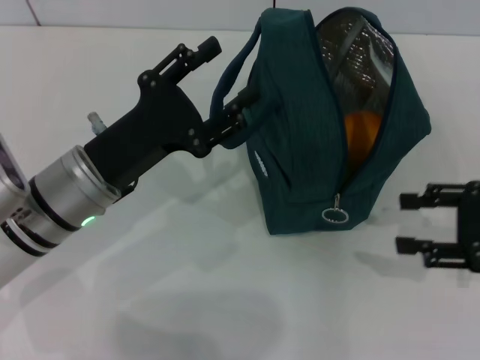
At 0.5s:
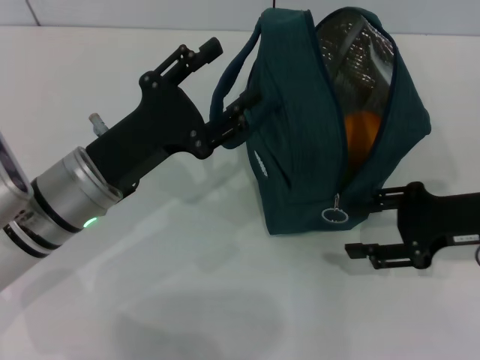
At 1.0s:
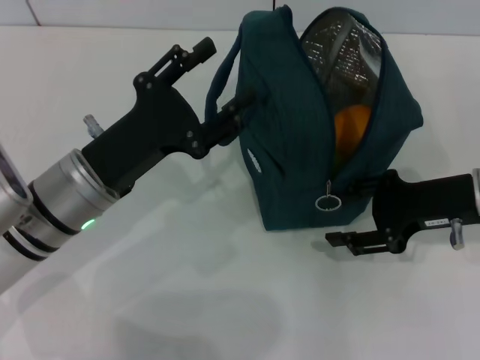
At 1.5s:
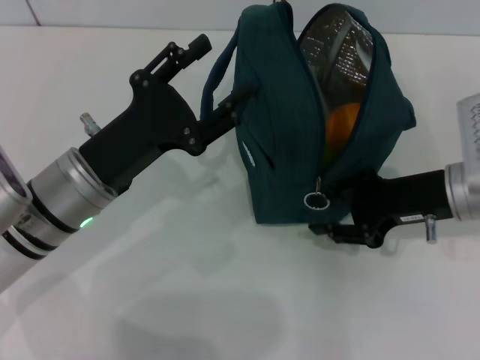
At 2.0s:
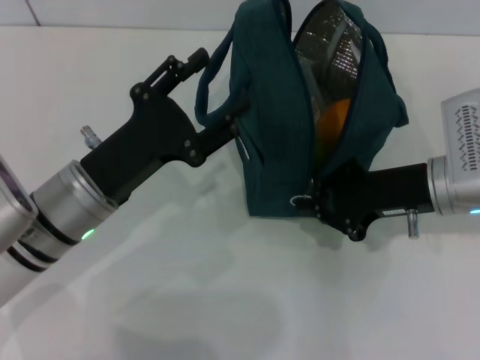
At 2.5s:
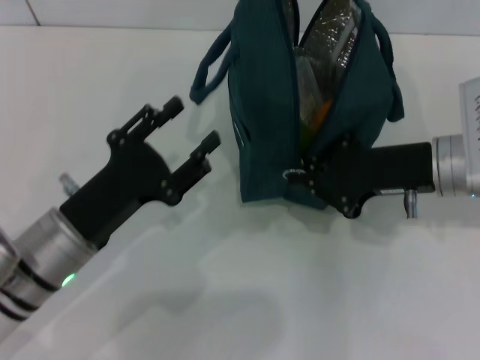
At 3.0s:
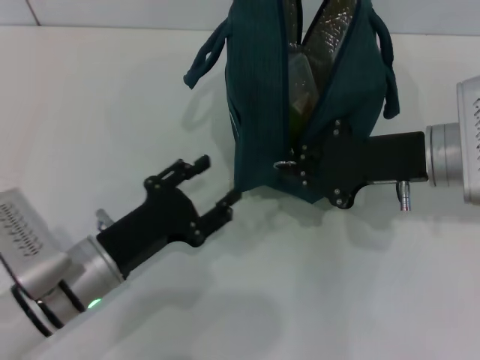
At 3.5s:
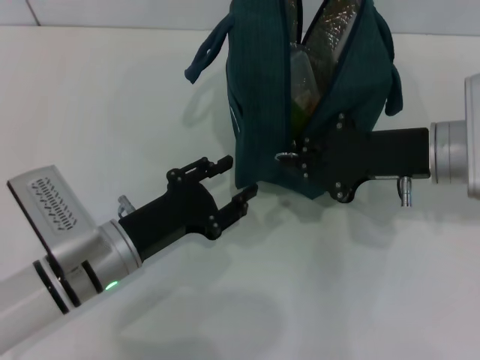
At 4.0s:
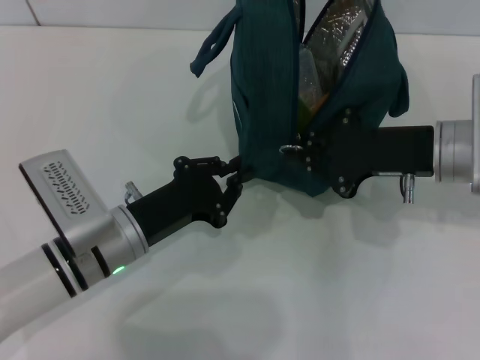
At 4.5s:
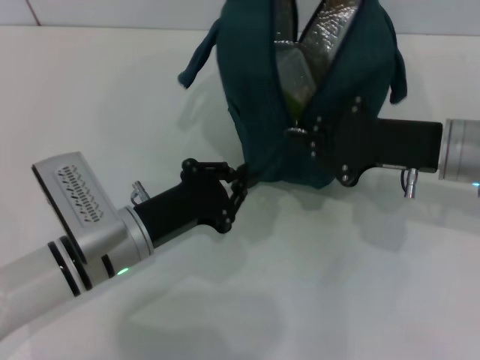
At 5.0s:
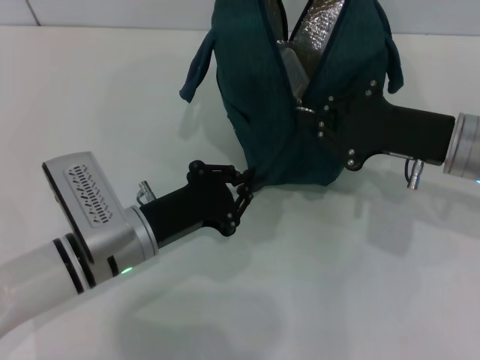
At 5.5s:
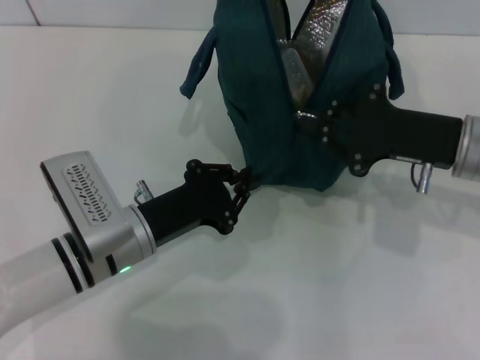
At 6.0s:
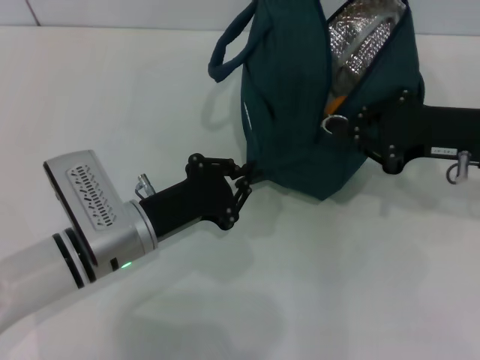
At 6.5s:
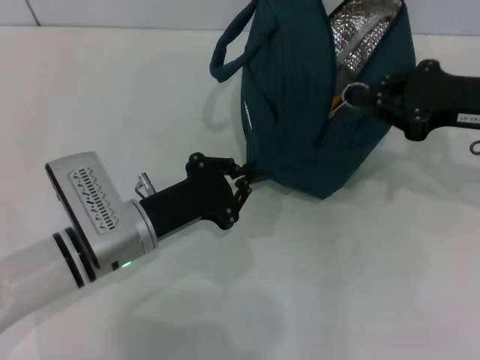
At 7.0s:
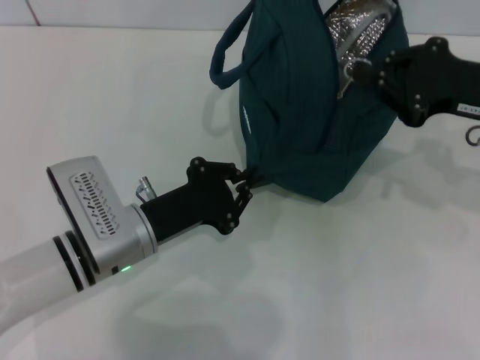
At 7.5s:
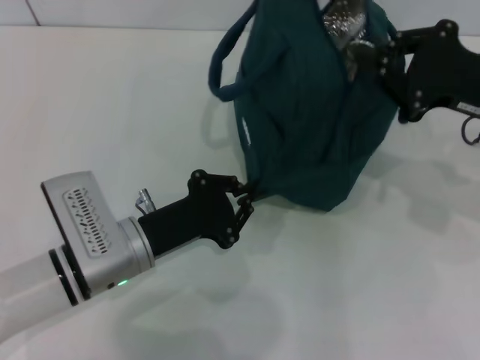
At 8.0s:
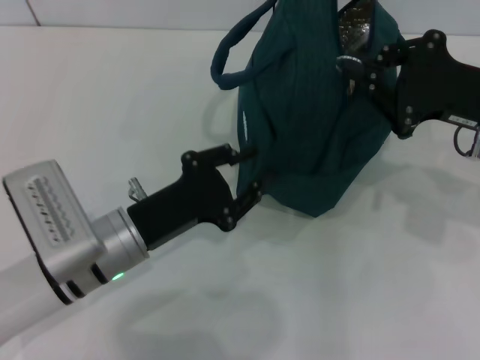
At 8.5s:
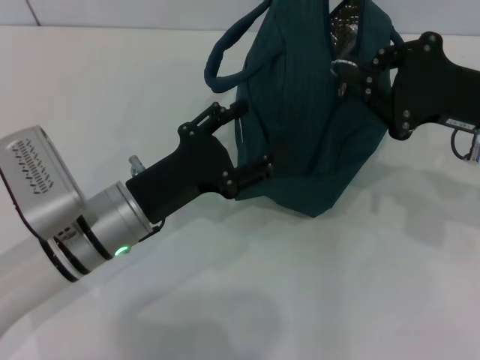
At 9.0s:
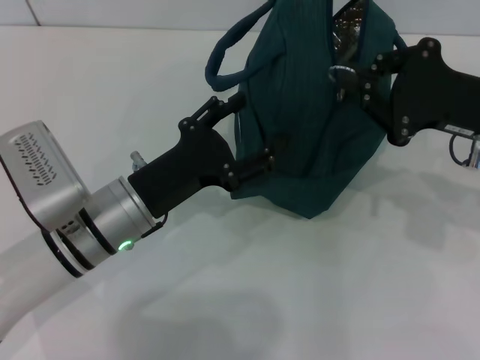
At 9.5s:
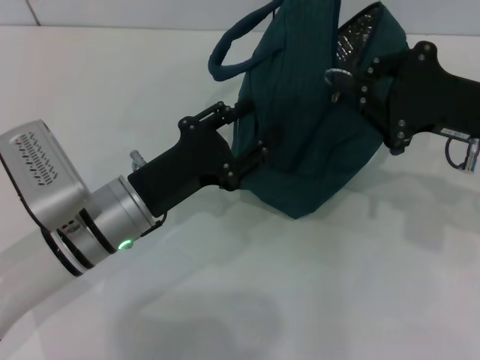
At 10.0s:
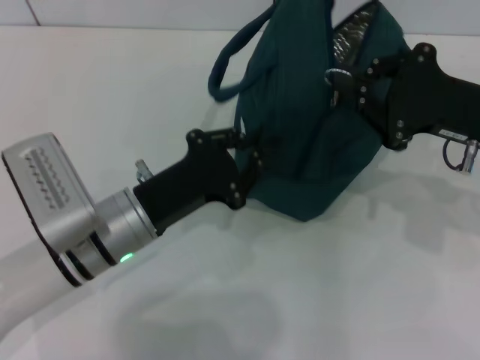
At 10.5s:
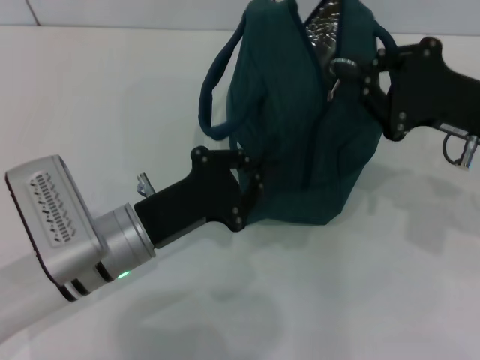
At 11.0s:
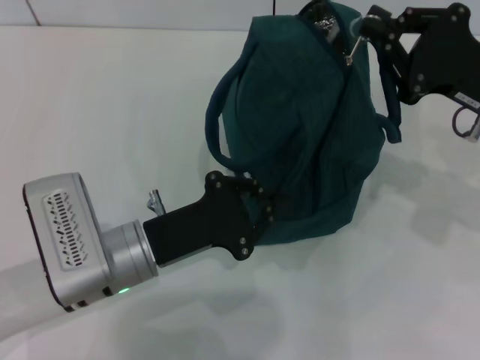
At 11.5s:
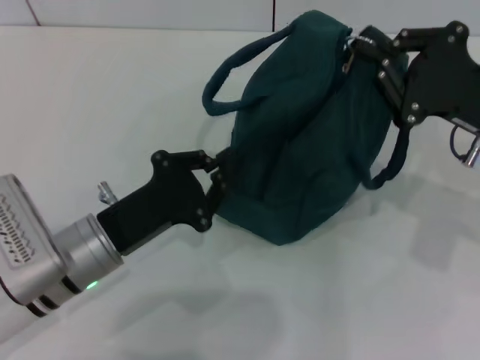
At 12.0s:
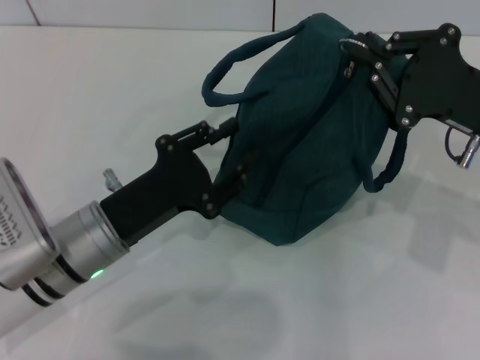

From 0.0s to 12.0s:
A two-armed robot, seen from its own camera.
From 0.0s to 2.0s: The right gripper moves to the left and forward, about 15 cm, and closes up.
From 2.0s to 4.0s: The left gripper travels downward by roughly 5 cm, and closes up.
From 8.0s to 10.0s: The left gripper opens and closes again.

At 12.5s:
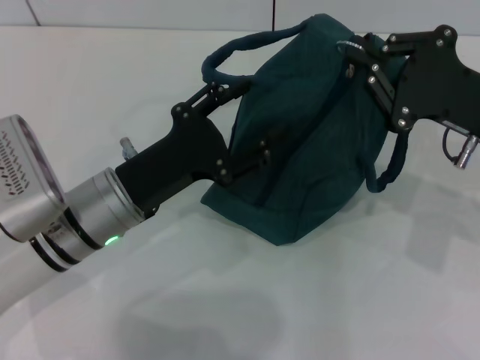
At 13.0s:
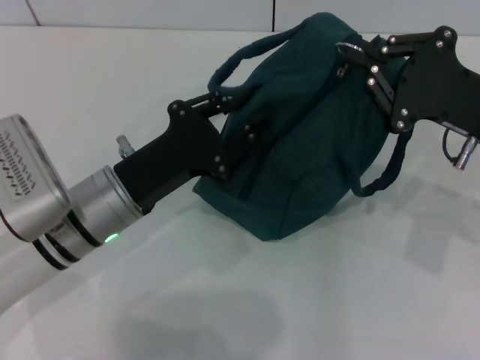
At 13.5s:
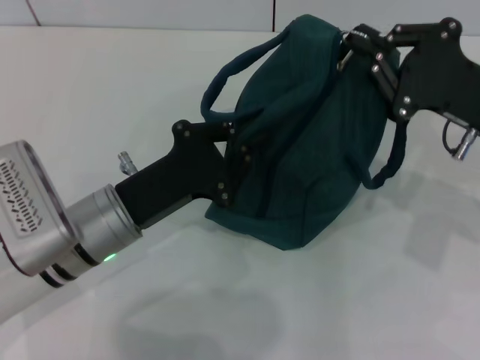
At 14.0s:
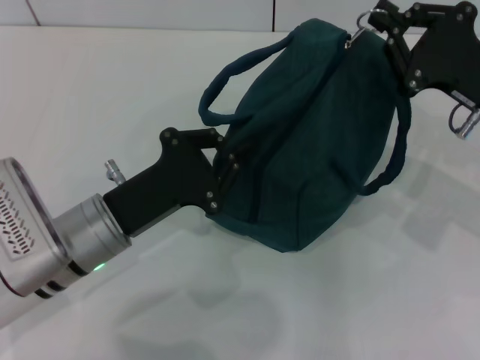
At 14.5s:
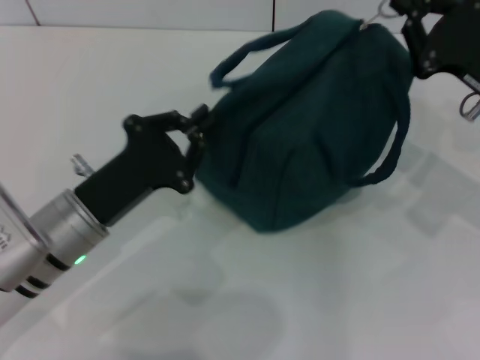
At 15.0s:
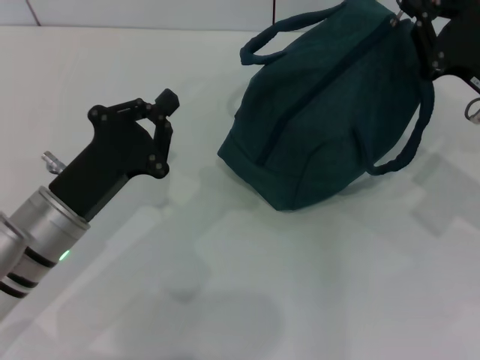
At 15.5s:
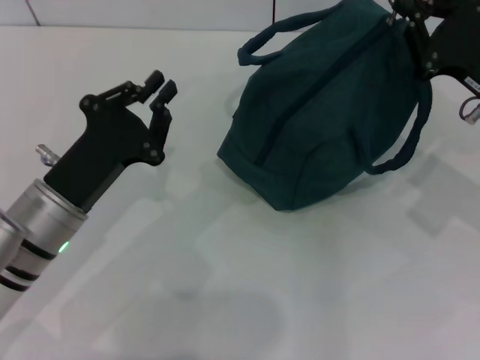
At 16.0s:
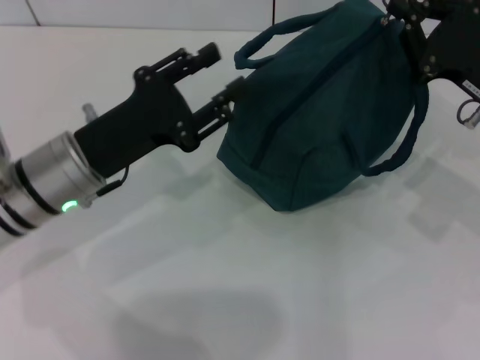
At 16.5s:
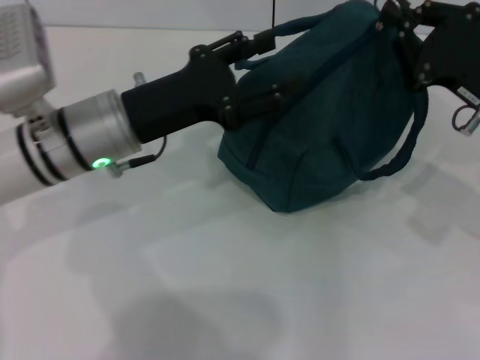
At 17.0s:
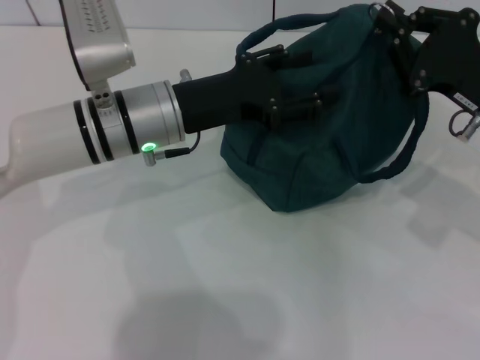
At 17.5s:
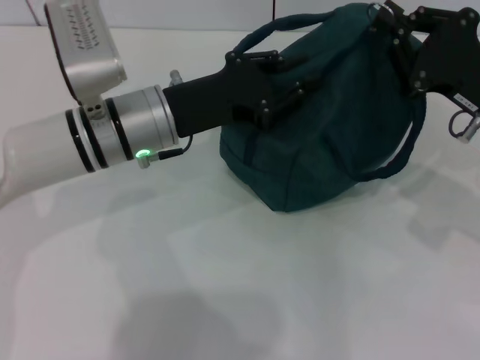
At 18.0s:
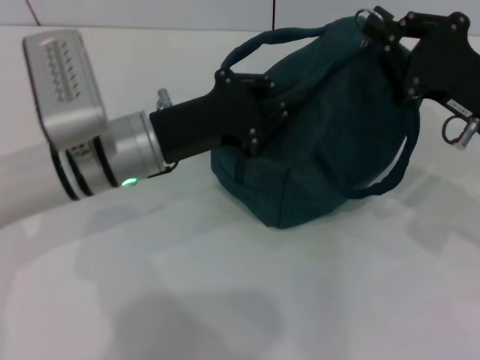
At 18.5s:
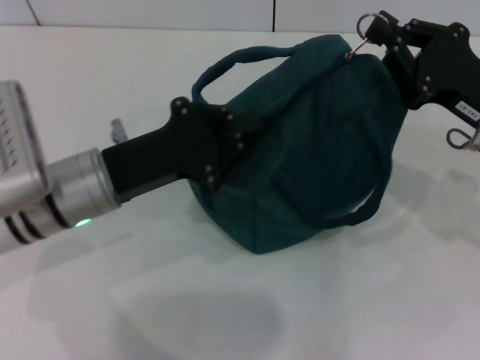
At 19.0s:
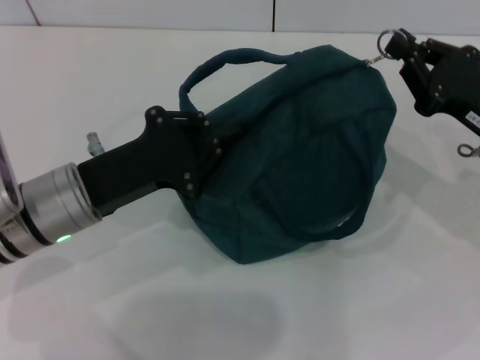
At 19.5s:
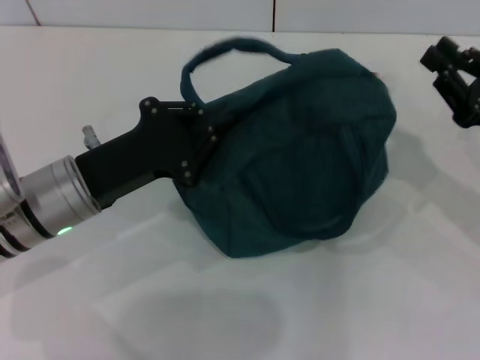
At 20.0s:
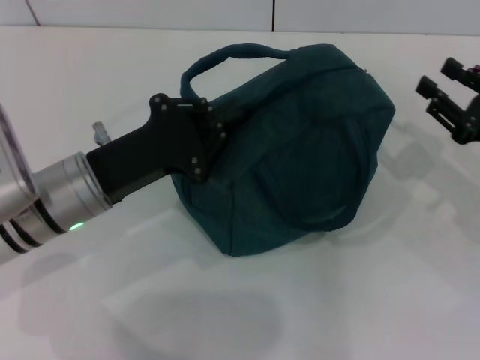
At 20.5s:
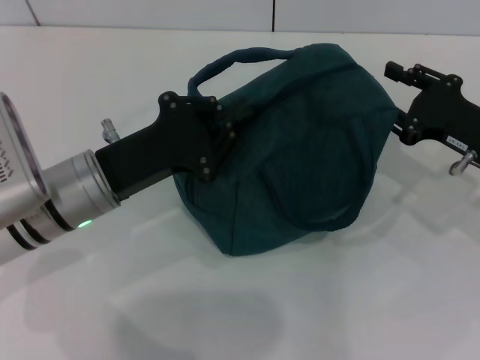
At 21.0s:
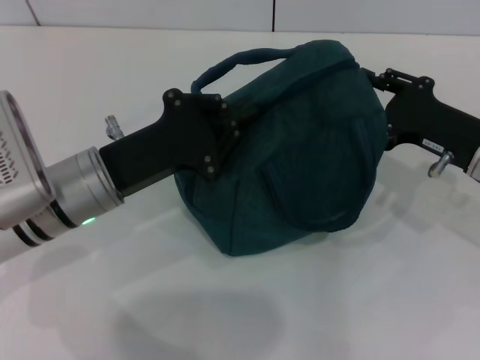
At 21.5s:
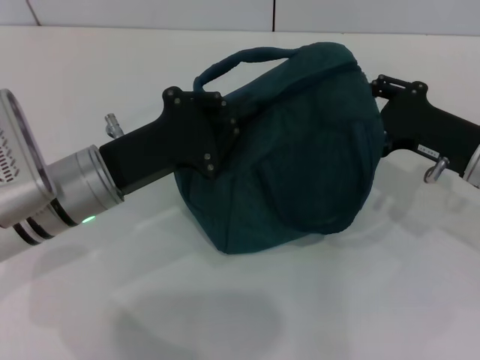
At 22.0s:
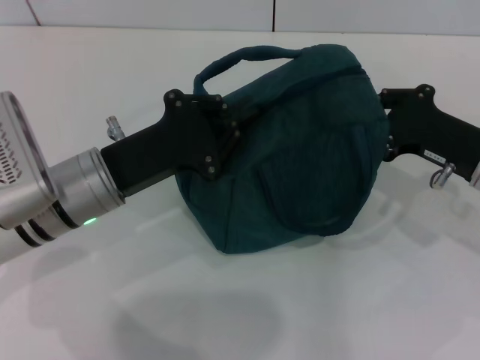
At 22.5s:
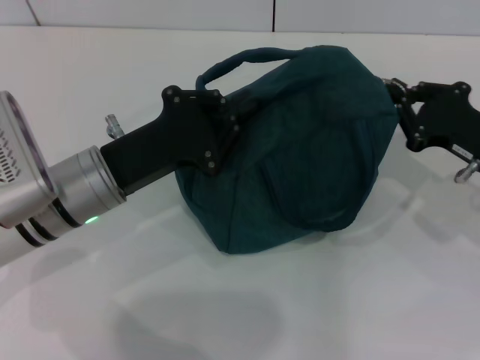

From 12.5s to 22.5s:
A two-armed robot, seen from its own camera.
From 12.5s to 14.5s: The left gripper closes up.
From 14.5s to 16.5s: The left gripper moves forward and upward, some 10 cm, and opens up.
From 16.5s to 18.5s: The left gripper closes.
From 18.5s to 20.5s: The right gripper opens its fingers.
From 20.5s to 22.5s: The right gripper closes up.

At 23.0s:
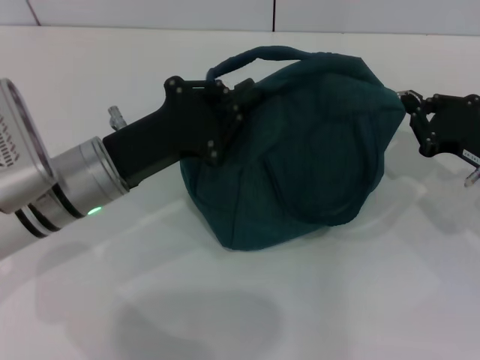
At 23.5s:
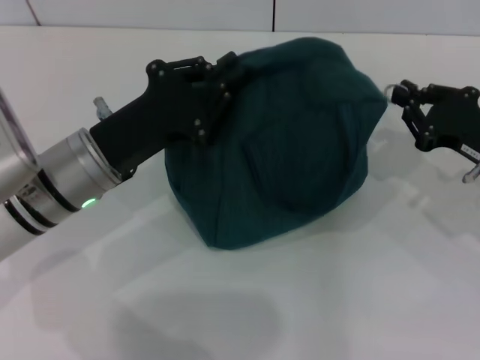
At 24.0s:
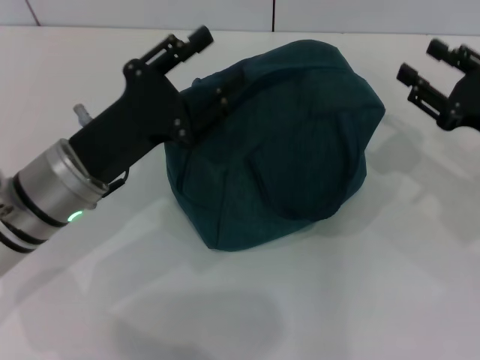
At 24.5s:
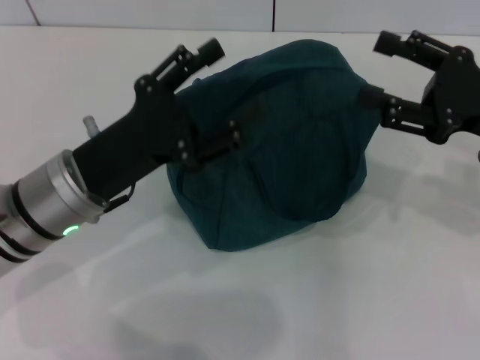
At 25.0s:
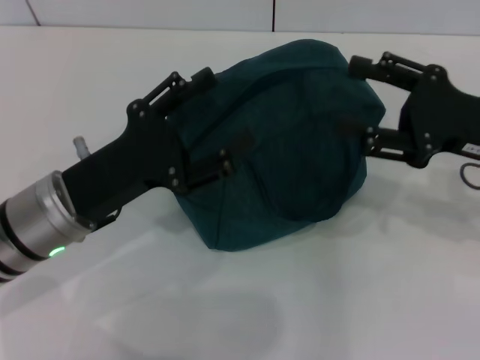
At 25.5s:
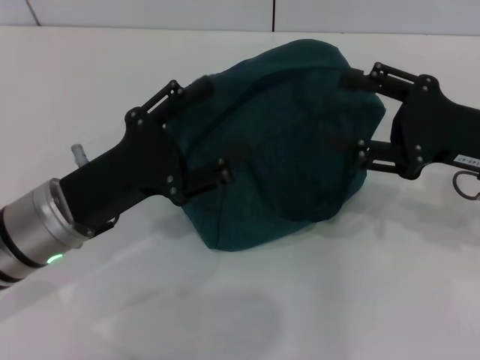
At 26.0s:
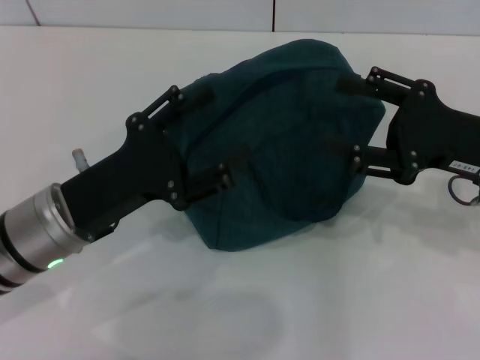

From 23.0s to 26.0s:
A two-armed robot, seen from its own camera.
From 23.0s to 24.5s: The right gripper goes approximately 10 cm upward, and opens up. The left gripper opens.
From 24.5s to 26.0s: The grippers move only a little.
